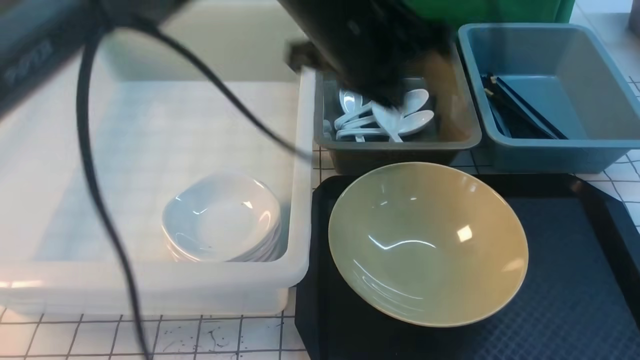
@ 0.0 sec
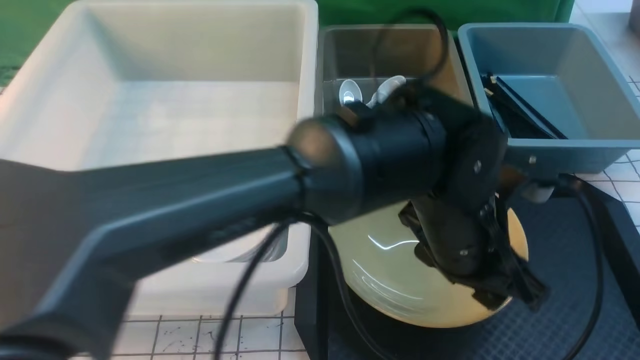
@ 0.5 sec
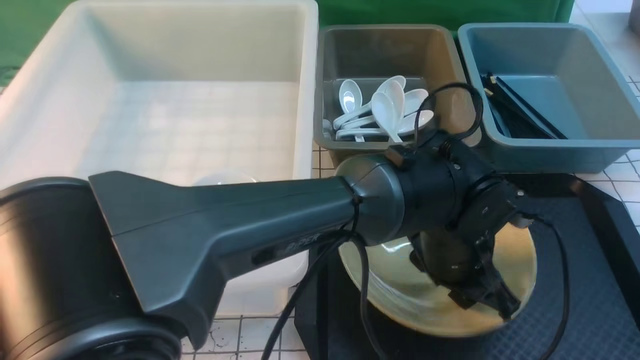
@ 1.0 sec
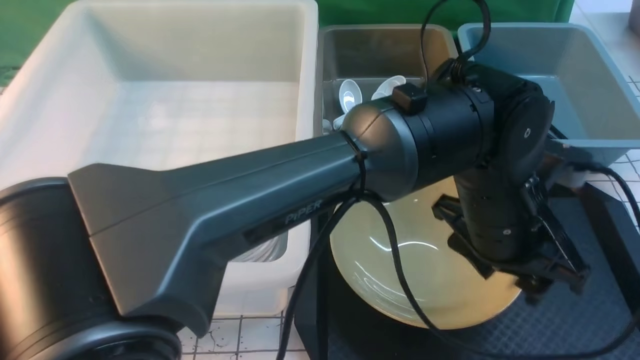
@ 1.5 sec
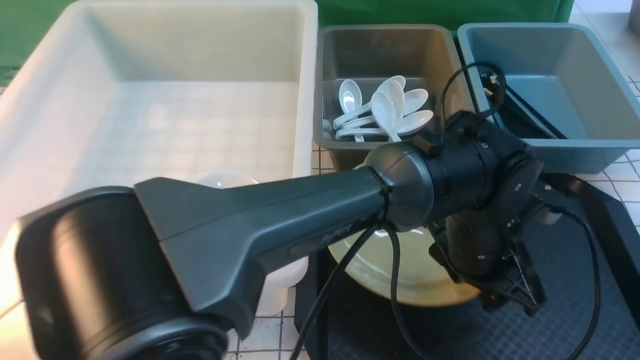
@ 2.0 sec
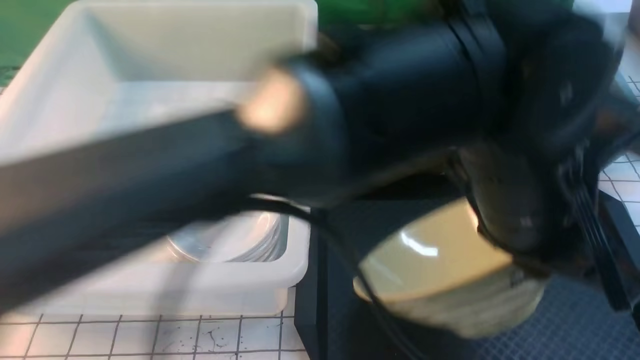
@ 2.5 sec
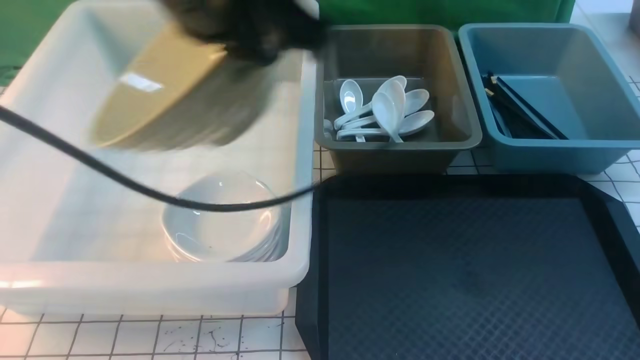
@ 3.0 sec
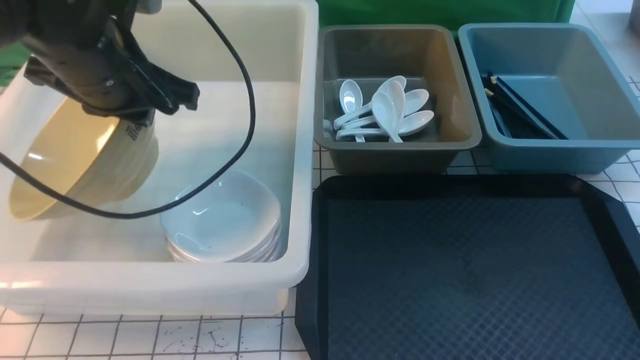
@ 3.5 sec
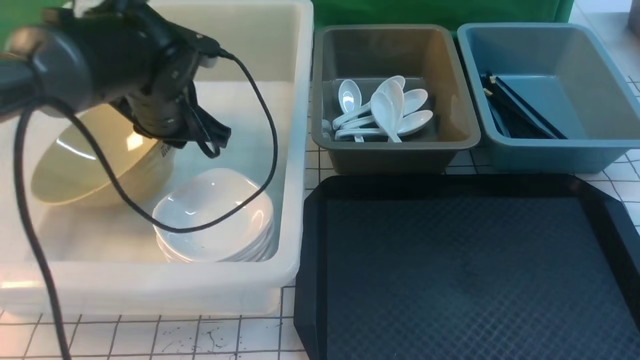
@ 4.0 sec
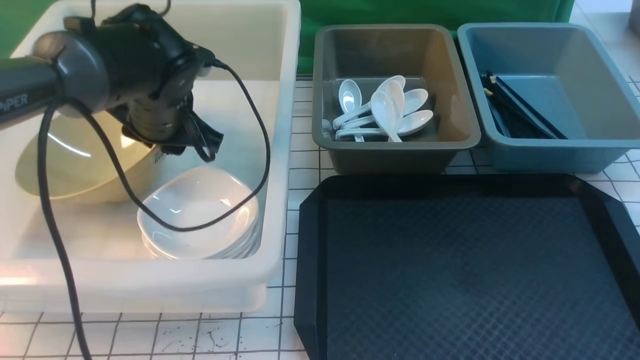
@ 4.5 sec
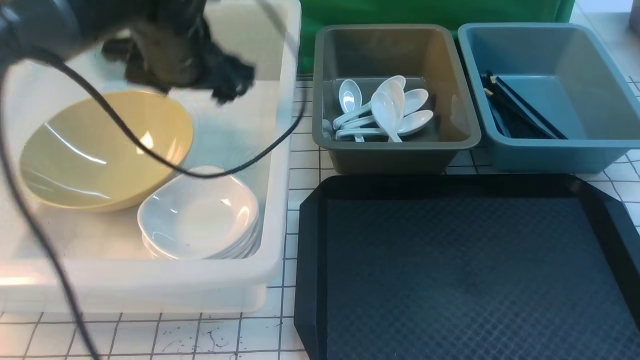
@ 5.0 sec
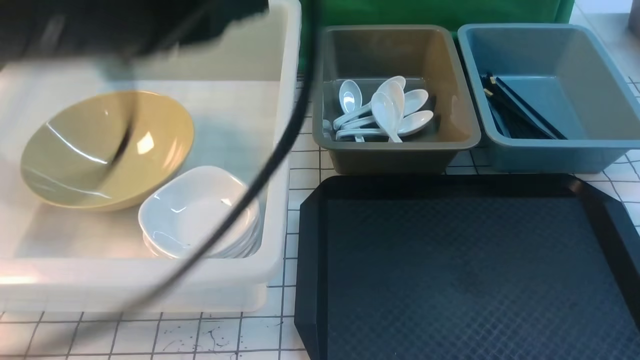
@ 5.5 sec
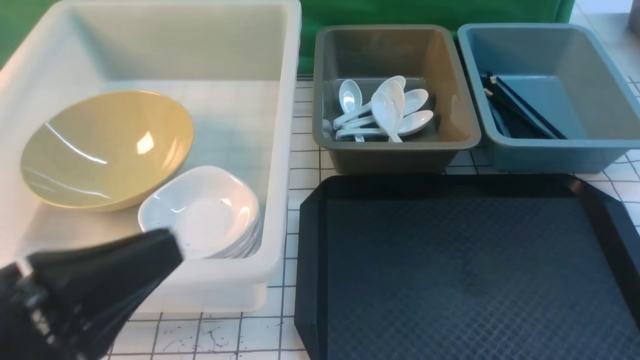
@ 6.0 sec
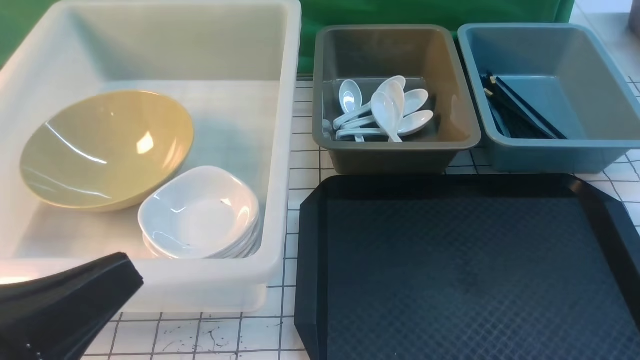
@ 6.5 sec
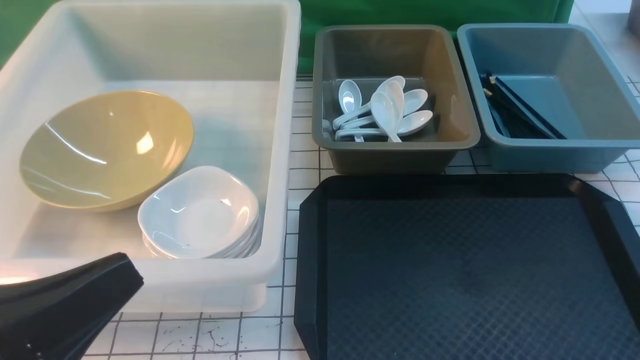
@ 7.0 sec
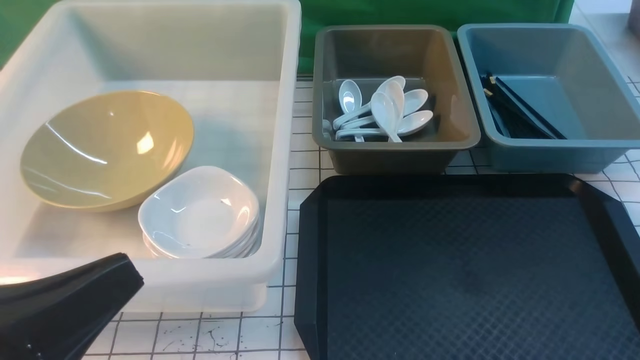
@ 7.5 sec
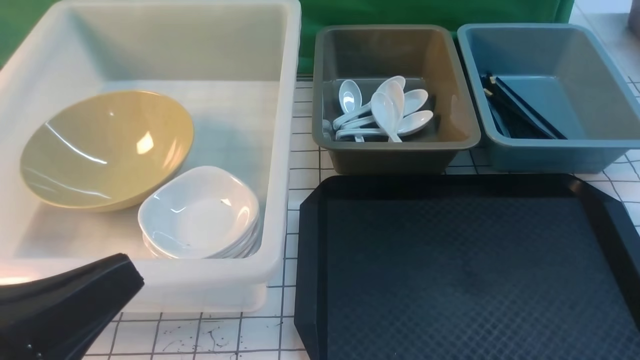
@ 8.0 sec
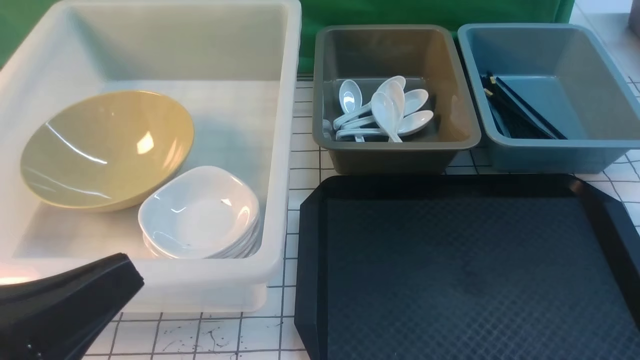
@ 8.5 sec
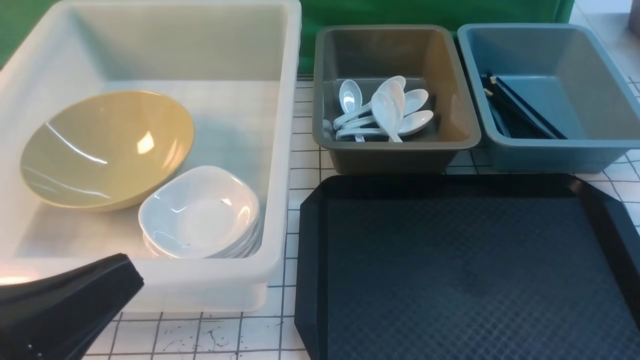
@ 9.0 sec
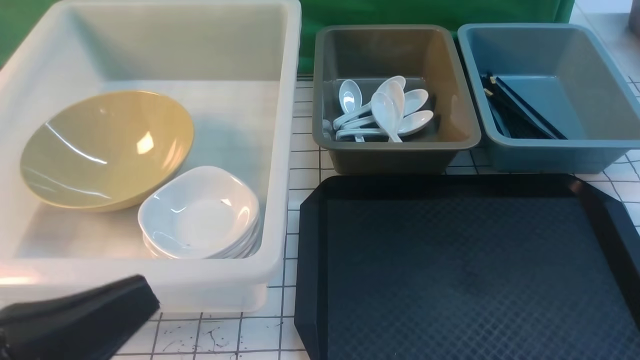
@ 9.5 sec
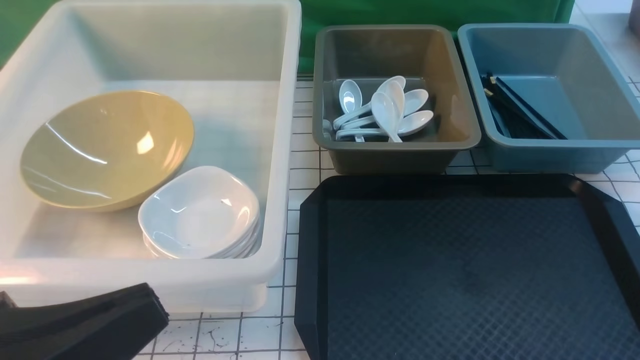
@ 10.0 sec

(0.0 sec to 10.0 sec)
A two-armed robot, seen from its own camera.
Task of the whole recording: on white black table put chopsticks spoon bowls plates into blue grey white boxes.
Step, 0.0 sec - 2.0 sec: use the left arm to grab the yellow noodle bowl on the left.
Step, 2.5 sec - 4.5 sec: use the left arm to put the noodle bowl into the large storage box on the left.
0.0 sec - 2.0 sec: The left gripper moves downward and to the right, about 20 cm, and opens up.
2.0 sec - 4.0 sec: The right gripper shifts about 5 cm to the left. The left gripper moves to the left and forward, about 35 cm, and closes its fingers.
4.0 sec - 6.0 sec: The left gripper heads backward, covering roughly 30 cm, and opens and closes again.
8.0 sec - 10.0 sec: The grippers stay close to where they were, moving slightly.

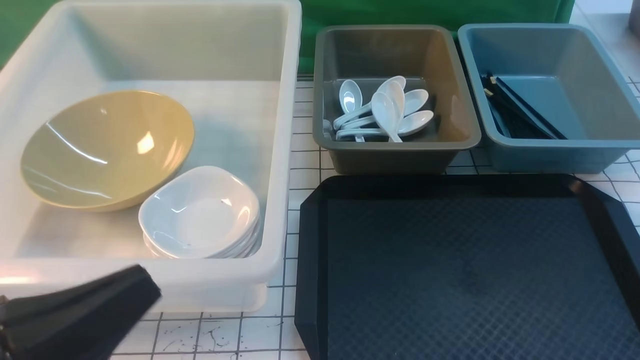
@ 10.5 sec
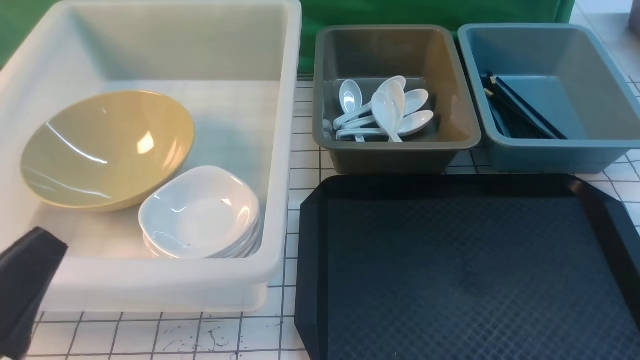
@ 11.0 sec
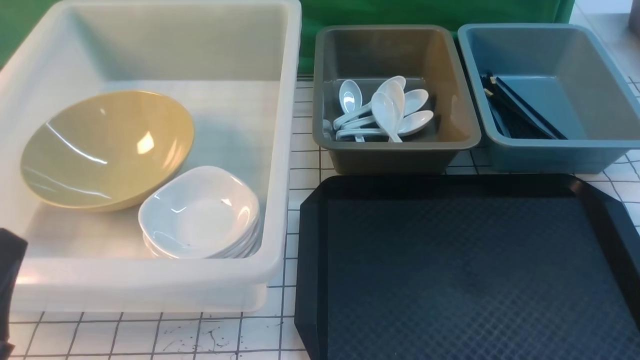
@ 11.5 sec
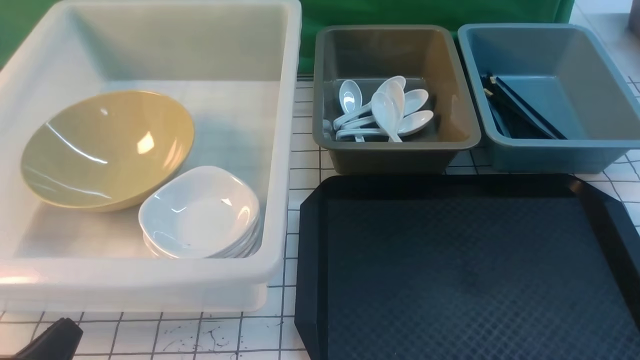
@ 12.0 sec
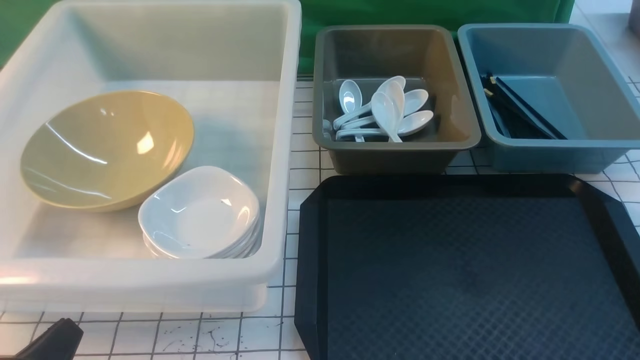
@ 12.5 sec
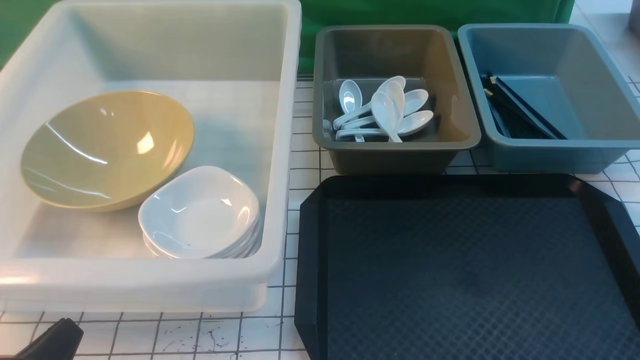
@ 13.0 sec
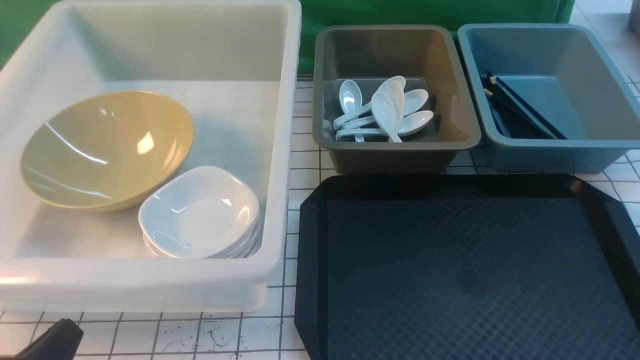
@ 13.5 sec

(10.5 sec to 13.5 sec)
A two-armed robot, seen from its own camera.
Task of the whole recording: on white black table put chopsticks spoon bowls plates into blue grey white boxes.
10.5 sec - 12.0 sec: The left gripper moves downward, roughly 10 cm.
12.0 sec - 13.5 sec: The two grippers keep their place.
